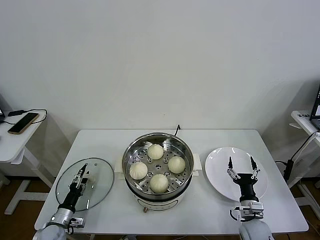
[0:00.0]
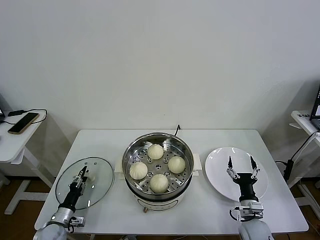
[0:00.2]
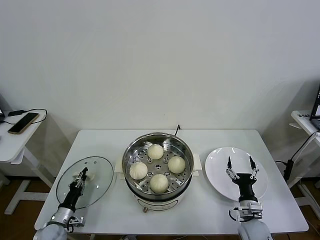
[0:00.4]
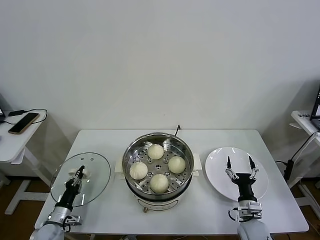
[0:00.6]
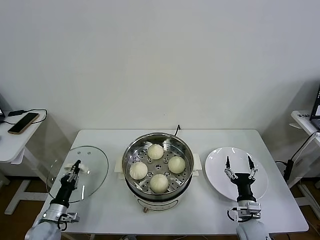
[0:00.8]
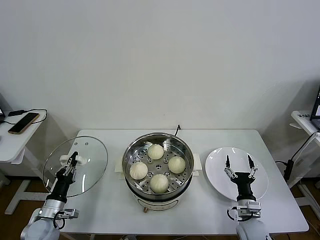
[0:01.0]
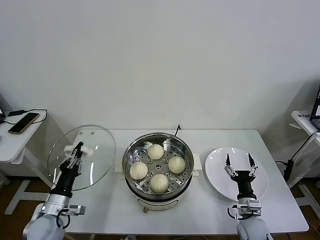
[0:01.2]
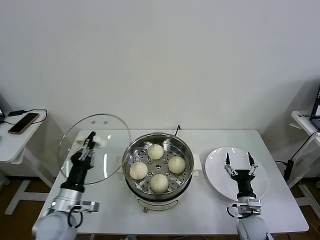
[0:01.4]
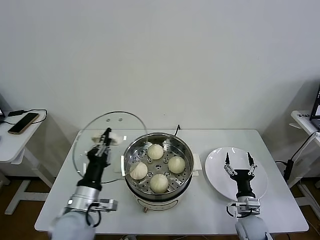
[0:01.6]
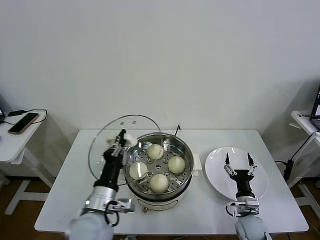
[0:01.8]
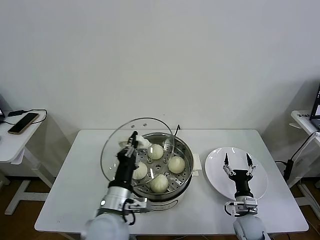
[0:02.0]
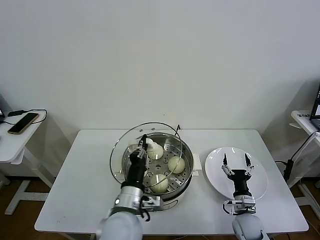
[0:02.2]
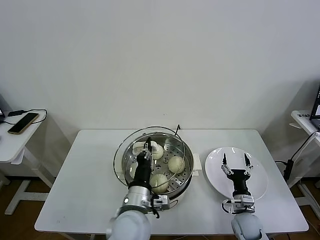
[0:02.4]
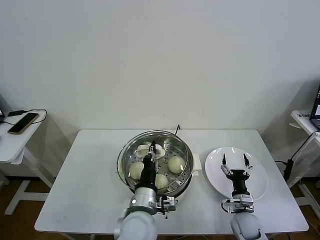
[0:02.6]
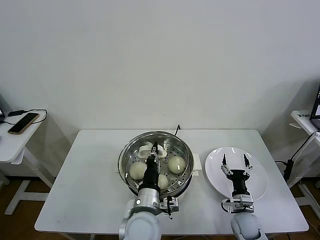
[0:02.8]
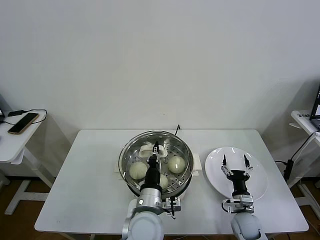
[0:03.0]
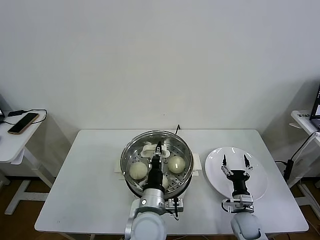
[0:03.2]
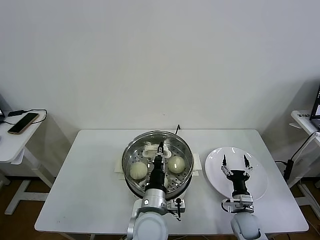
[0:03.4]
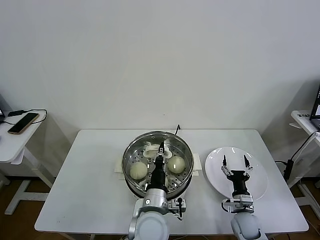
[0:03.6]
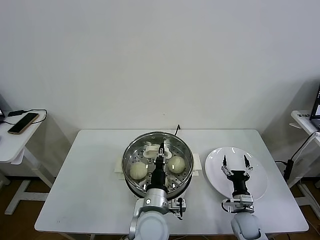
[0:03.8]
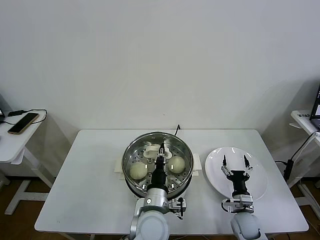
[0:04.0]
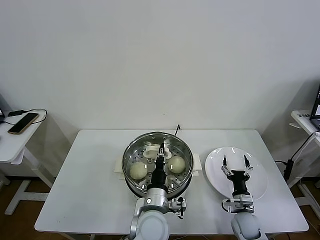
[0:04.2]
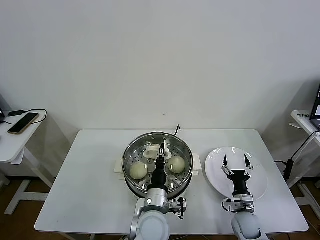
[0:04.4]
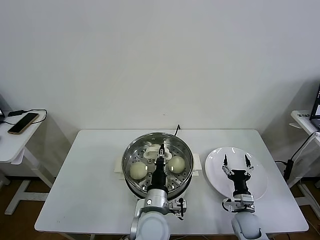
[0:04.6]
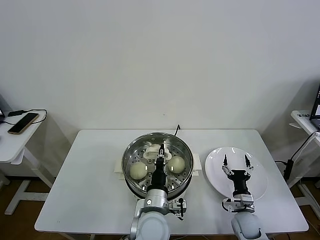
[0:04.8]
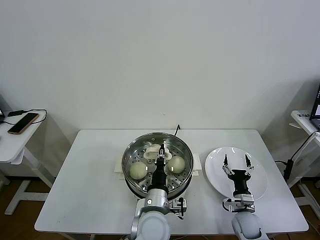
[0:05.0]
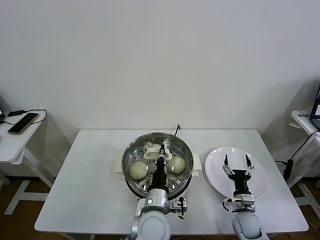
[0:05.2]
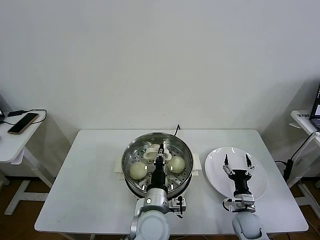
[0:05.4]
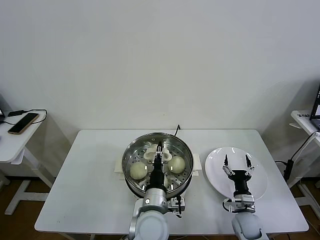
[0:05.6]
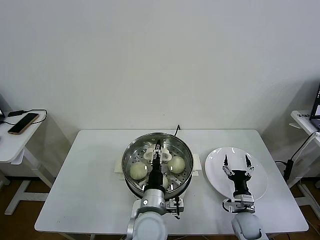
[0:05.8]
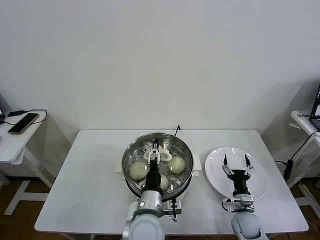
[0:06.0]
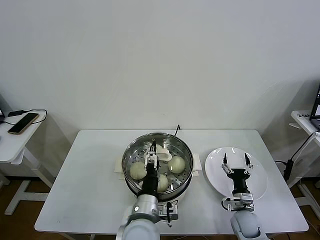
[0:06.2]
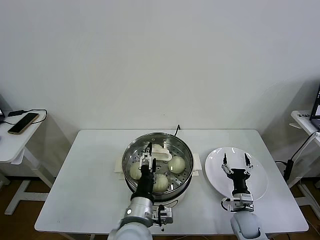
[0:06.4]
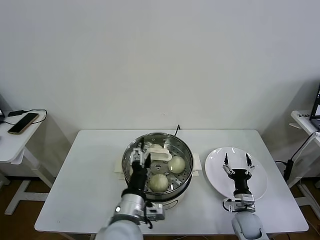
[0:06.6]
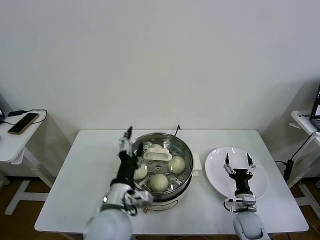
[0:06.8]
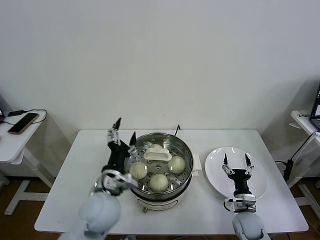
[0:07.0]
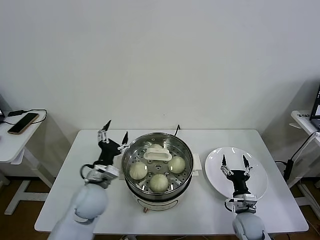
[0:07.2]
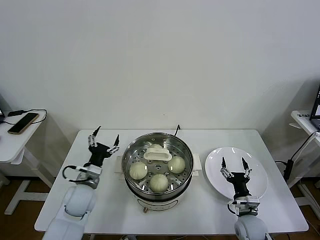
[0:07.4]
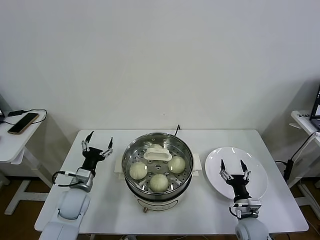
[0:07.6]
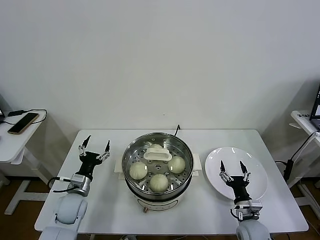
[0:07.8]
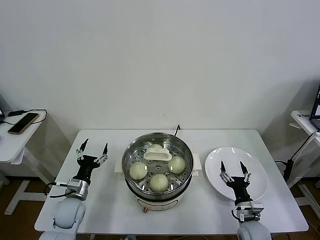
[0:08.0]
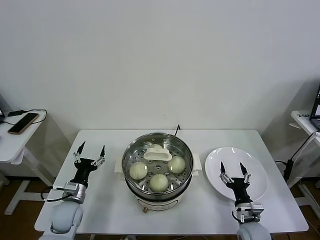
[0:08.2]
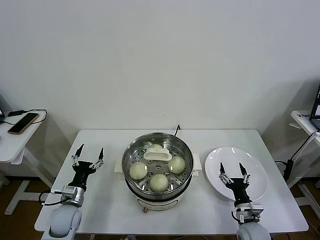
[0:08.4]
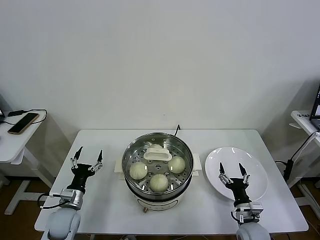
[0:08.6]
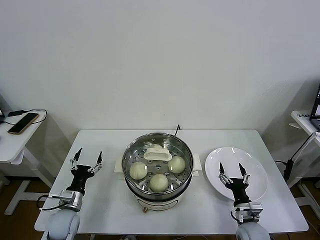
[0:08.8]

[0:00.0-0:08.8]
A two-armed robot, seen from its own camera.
Task of the whole recording: take steamed baozi put them in steamer then cover it.
Step, 0:00.8 to 0:05.6: Place the pot lid on the steamer with left gripper.
0:00.0 to 0:01.4: The left gripper heads upward and to the right, covering roughly 20 cm, and closes.
0:01.4 to 0:03.0: The left gripper moves to the right, approximately 25 cm.
0:03.0 to 0:04.4: There are only small adjustments of the grippers.
0:04.4 to 0:05.8: The left gripper opens.
0:05.8 to 0:07.4: The left gripper shifts roughly 25 cm to the left and forward, and opens its fingers.
0:07.4 to 0:08.8: The left gripper goes roughly 10 cm downward and to the left.
